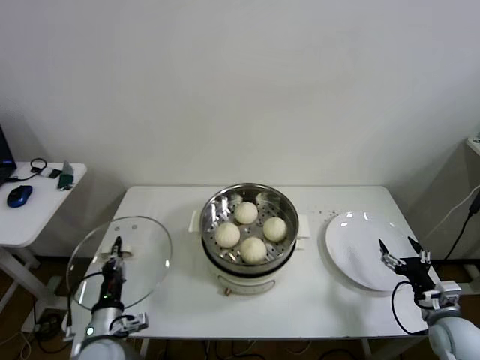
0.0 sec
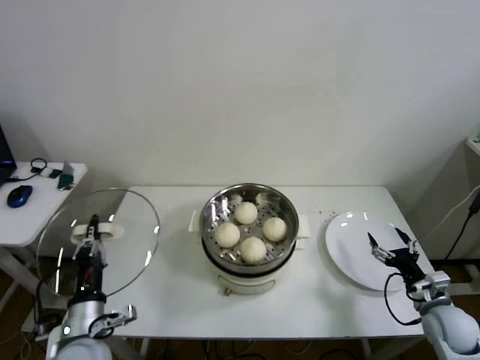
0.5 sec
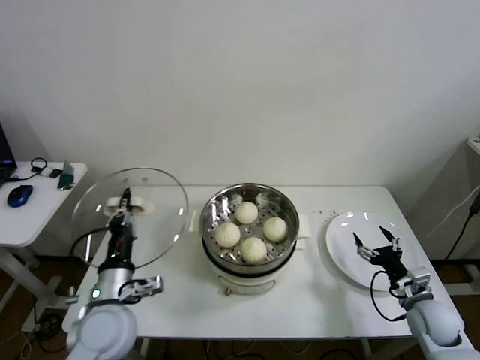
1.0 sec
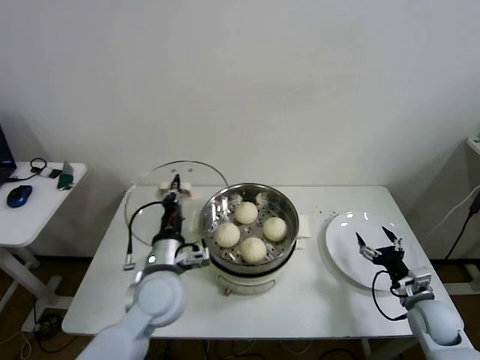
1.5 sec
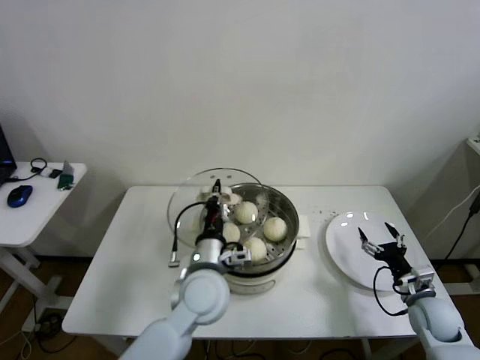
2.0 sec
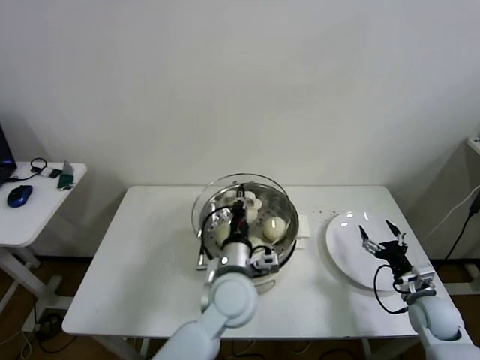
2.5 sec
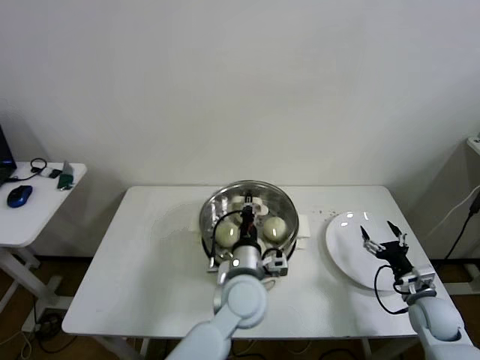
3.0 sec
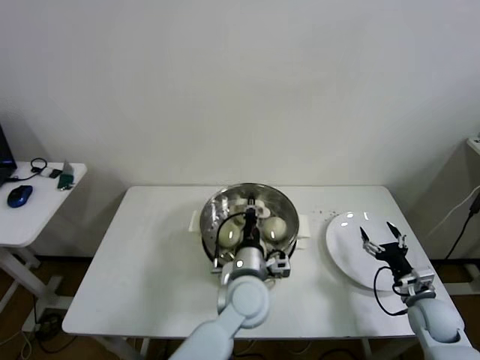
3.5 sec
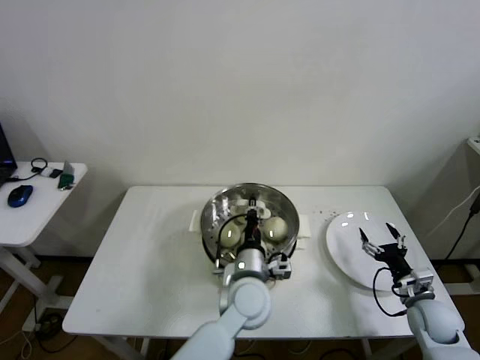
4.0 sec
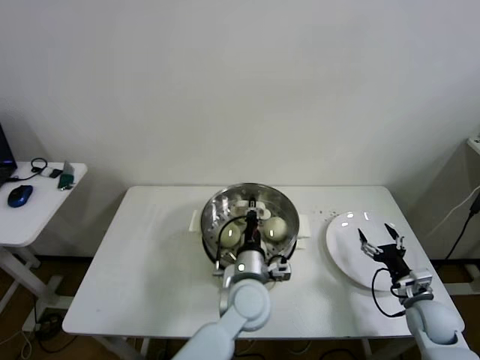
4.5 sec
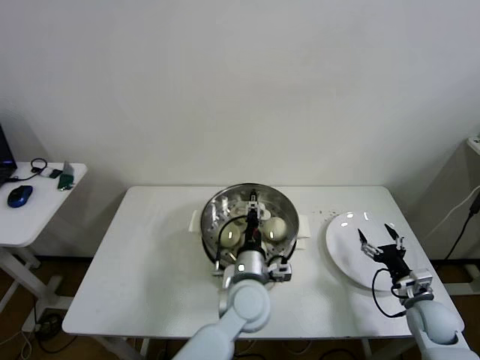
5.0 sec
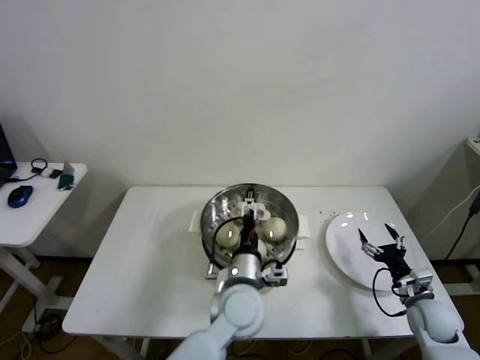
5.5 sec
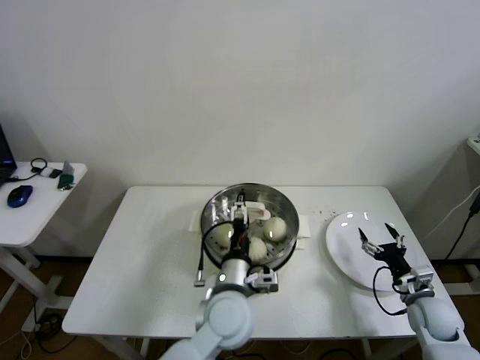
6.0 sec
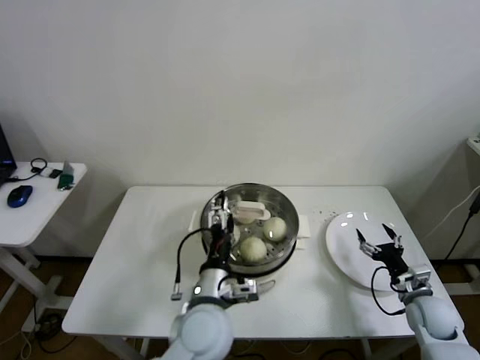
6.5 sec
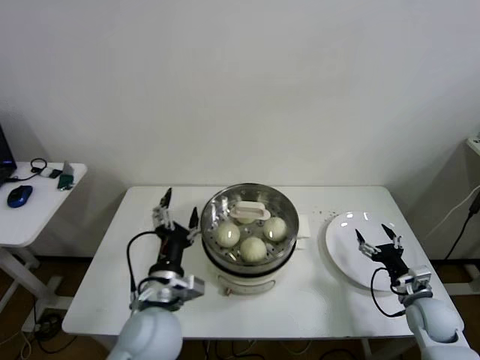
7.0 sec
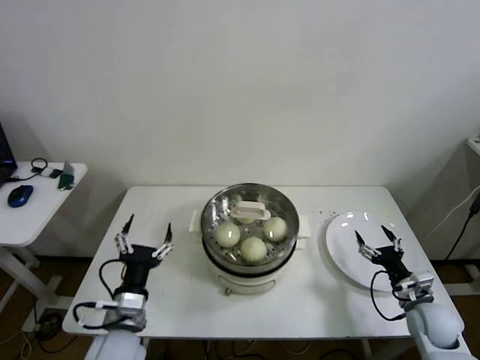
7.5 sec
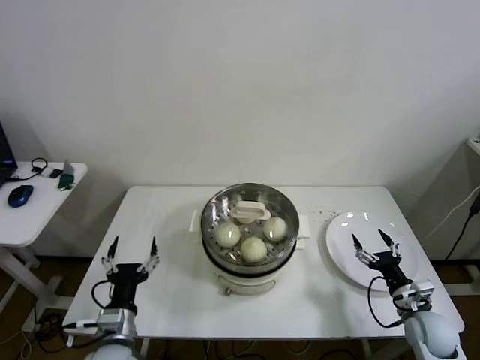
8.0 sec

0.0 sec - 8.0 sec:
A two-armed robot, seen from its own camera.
Step, 0.0 sec - 4.5 sec: Place the pot lid on the steamer with left gripper.
0.0 sec - 2.0 sec: The left gripper moves to the right, upward and forward, some 25 cm; the right gripper is displaced forward by approximately 5 cm.
2.0 sec - 4.0 sec: The left gripper travels to the right by approximately 10 cm.
4.0 sec - 6.0 sec: The left gripper ends up some 5 cm from where it was, and opens its fingers.
6.0 sec - 8.0 sec: The left gripper is displaced to the left by about 25 cm.
